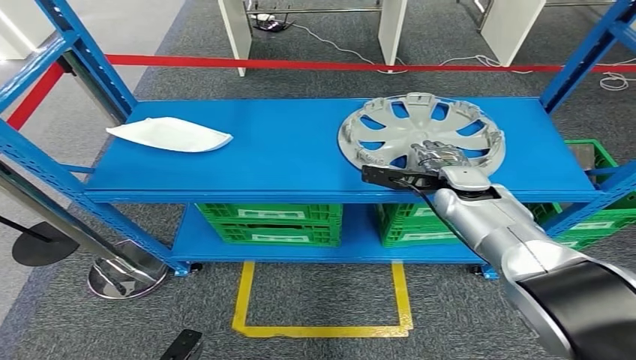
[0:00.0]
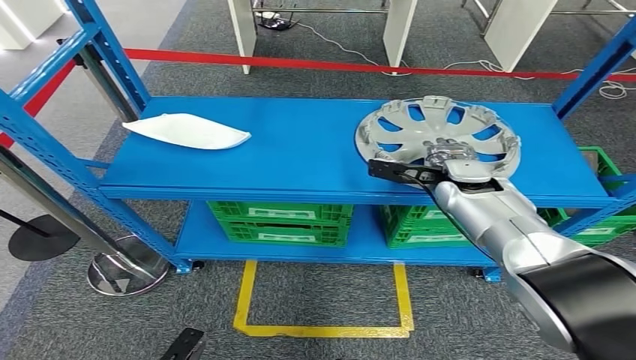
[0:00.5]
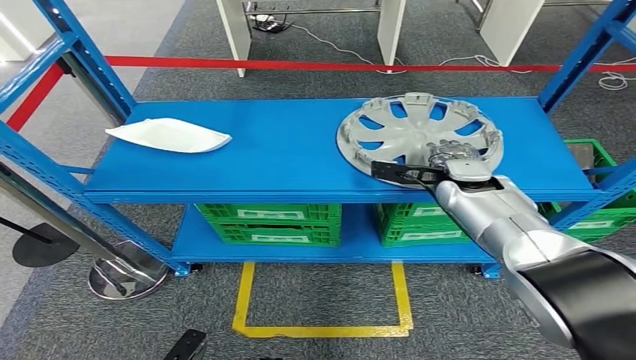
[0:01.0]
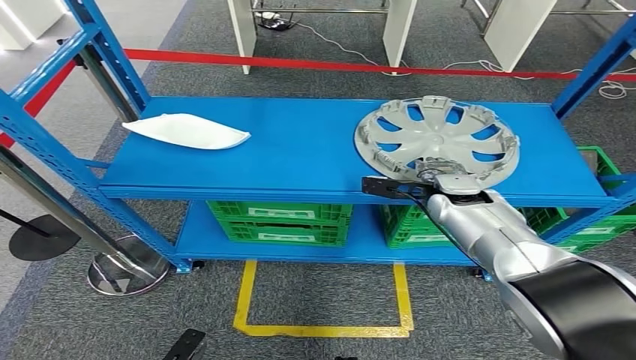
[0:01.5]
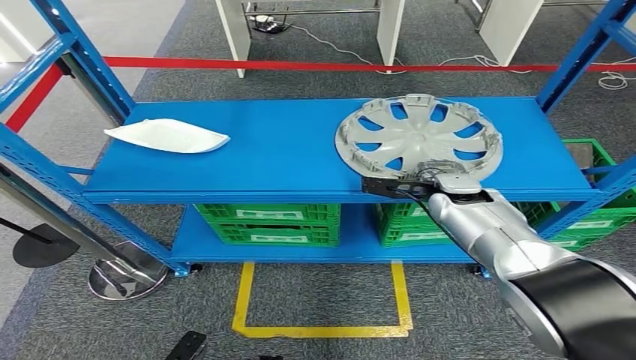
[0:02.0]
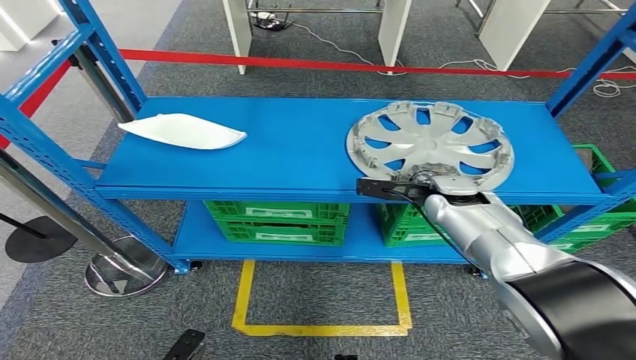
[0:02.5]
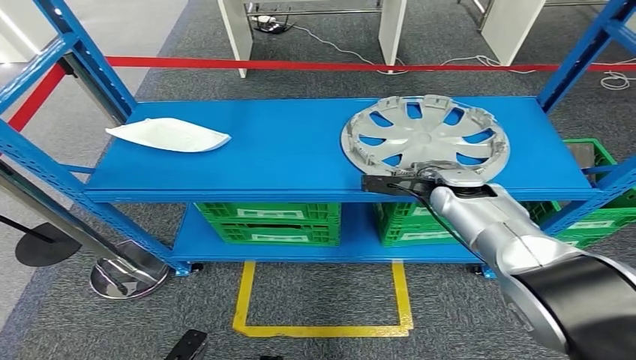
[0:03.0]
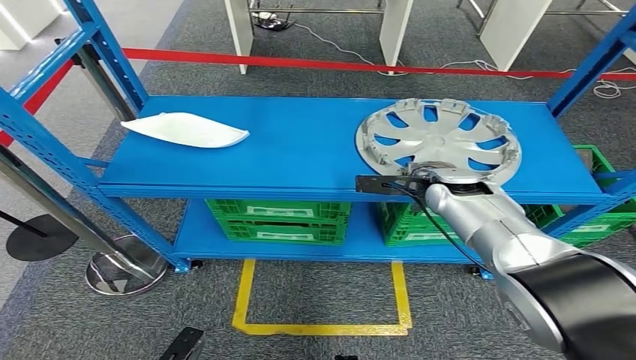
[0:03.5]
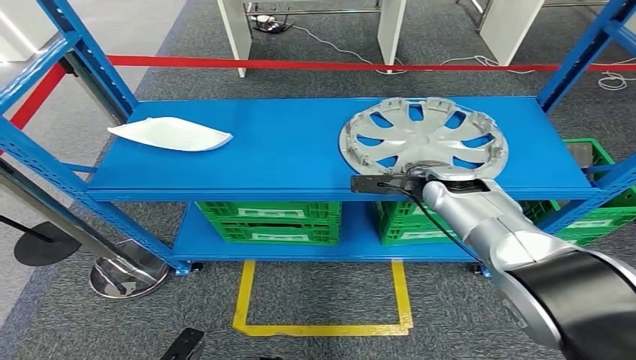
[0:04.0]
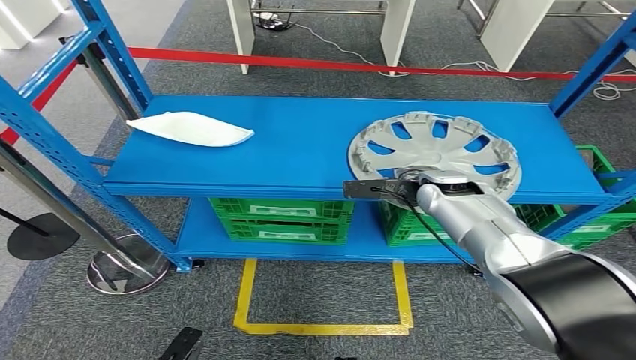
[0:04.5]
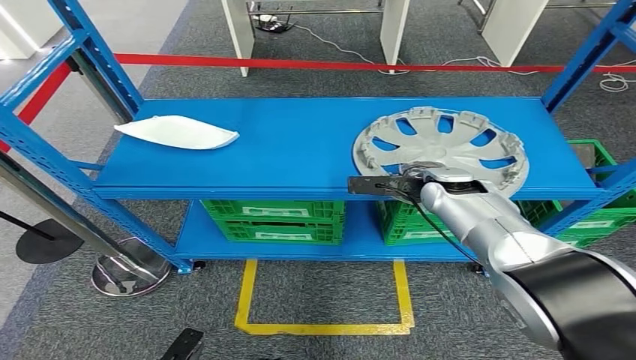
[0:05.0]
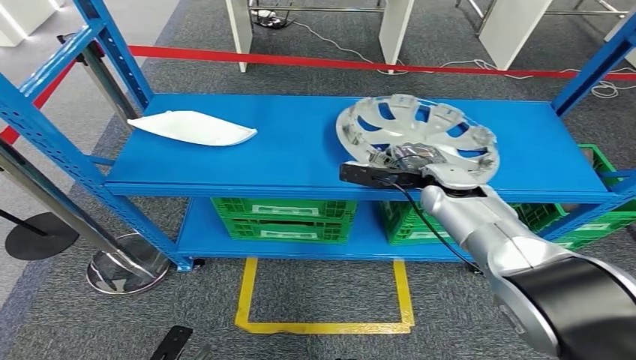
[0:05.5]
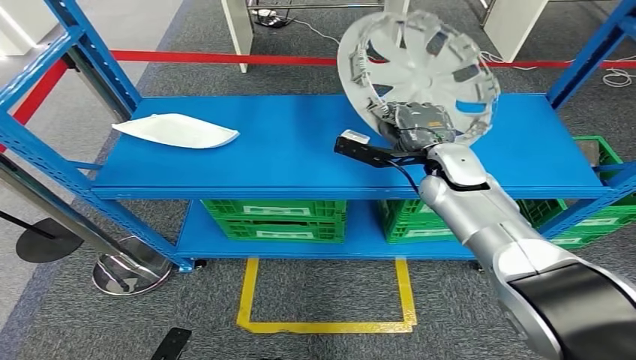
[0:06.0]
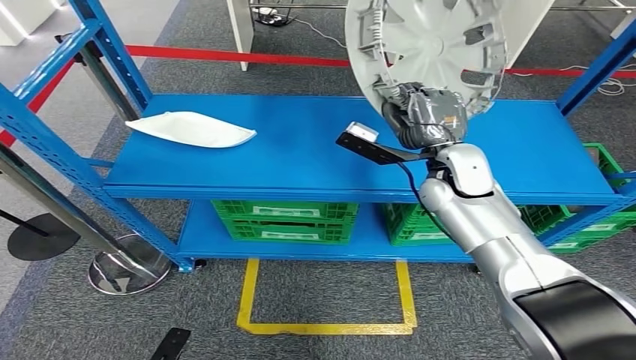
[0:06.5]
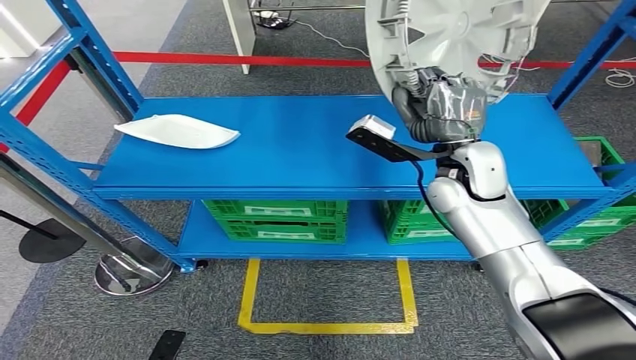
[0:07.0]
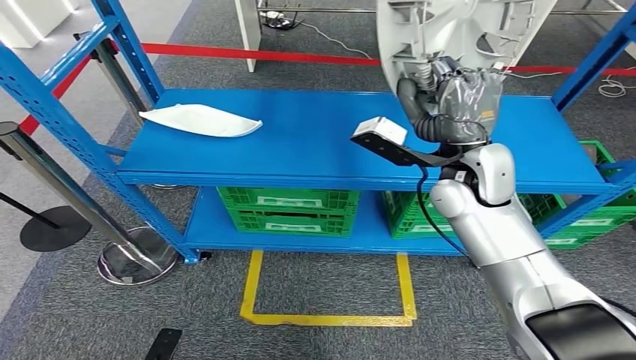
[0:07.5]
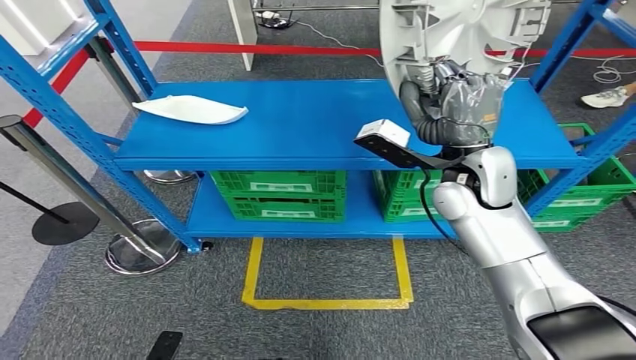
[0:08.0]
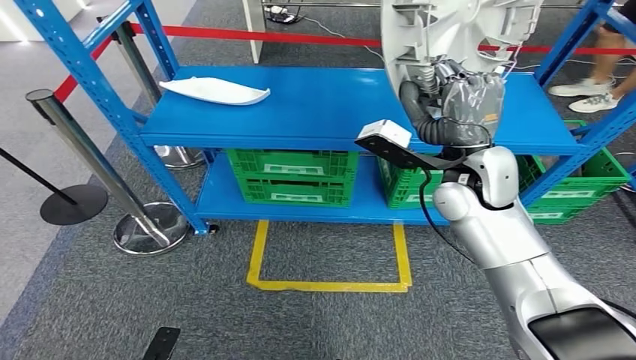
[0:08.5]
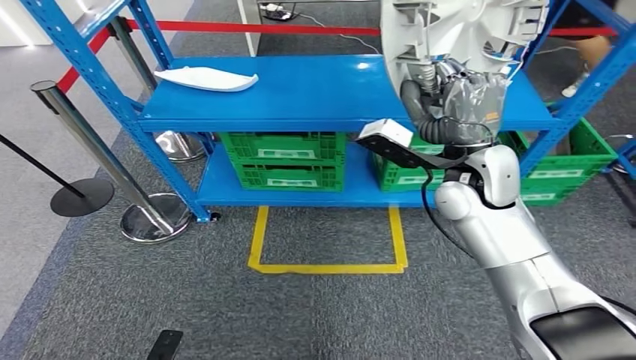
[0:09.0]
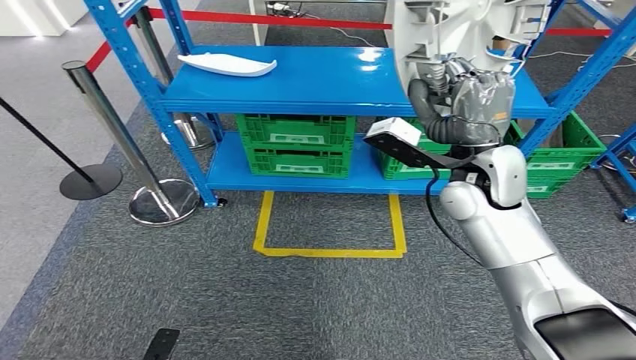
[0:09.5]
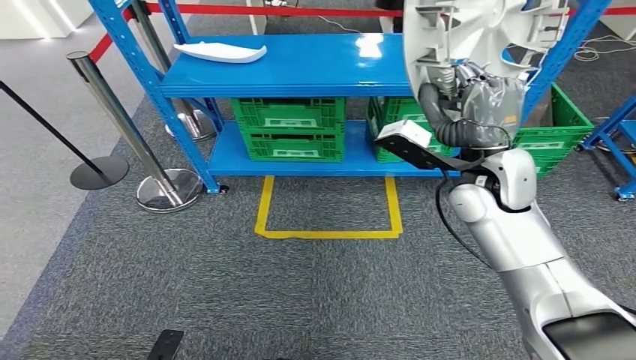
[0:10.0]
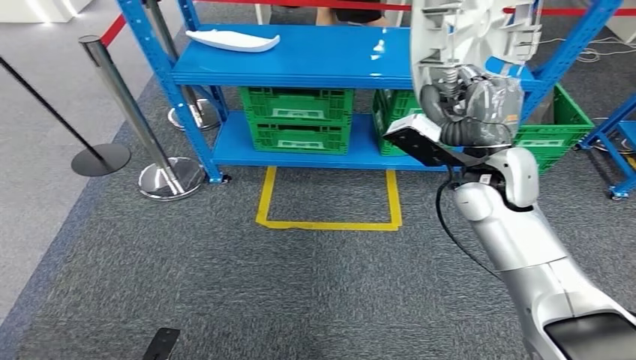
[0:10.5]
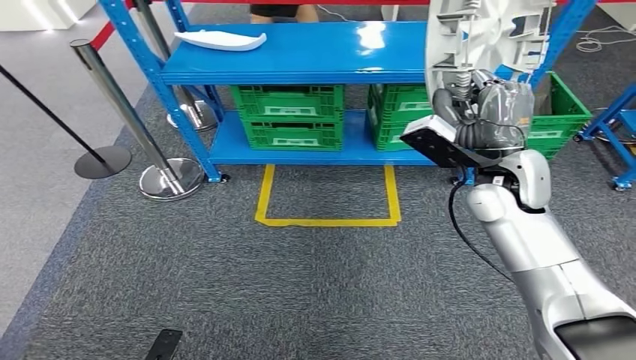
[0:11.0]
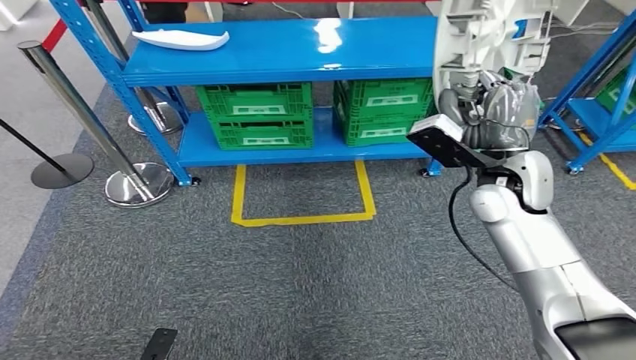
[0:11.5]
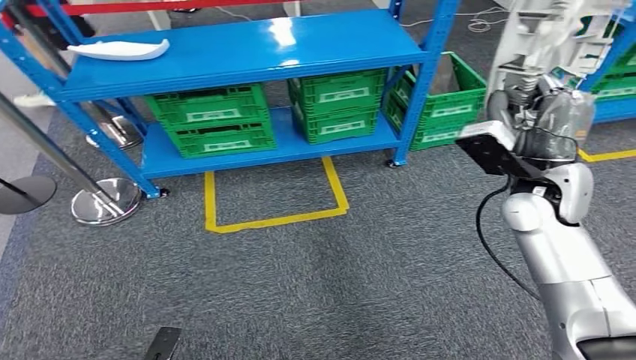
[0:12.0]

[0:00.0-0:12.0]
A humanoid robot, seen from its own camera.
Step, 0:00.0 to 0:07.0: Pick up the small component from the shelf.
0:00.0 to 0:04.0: The hands make only small movements.

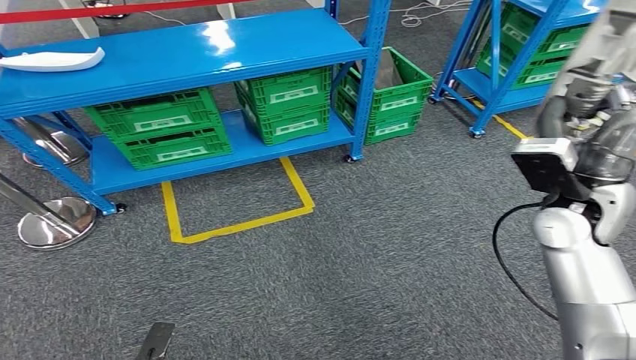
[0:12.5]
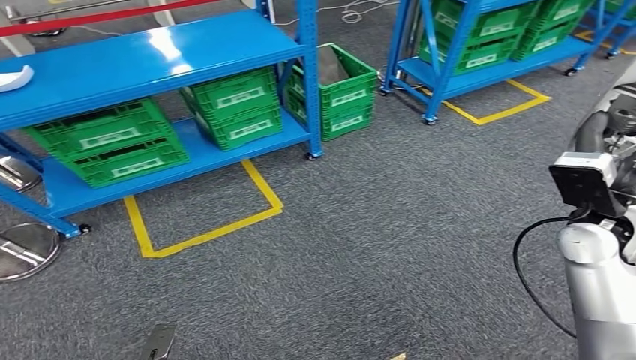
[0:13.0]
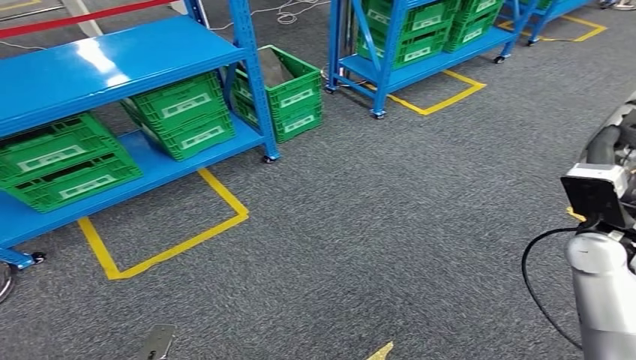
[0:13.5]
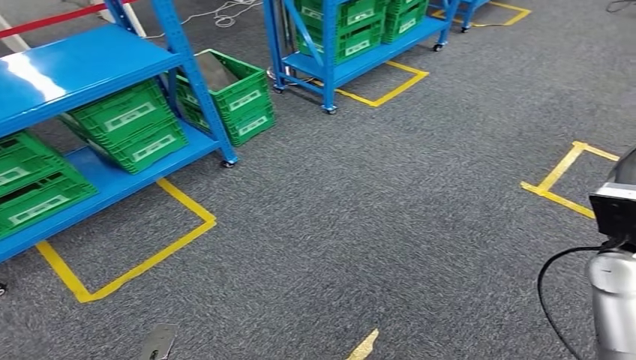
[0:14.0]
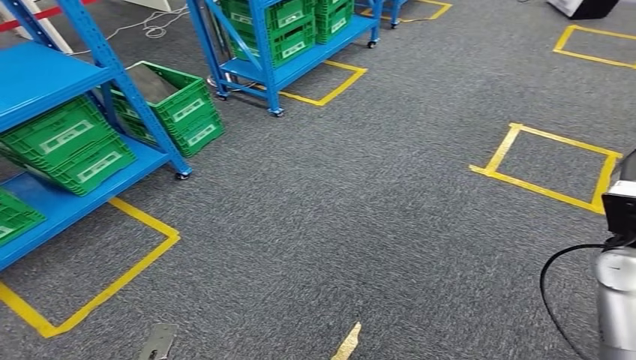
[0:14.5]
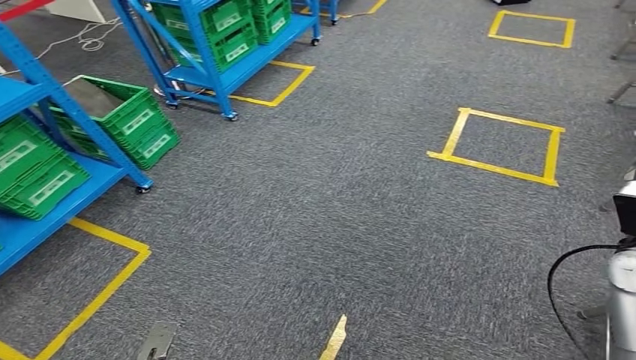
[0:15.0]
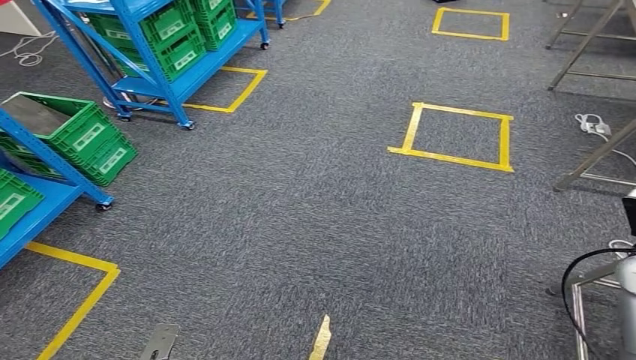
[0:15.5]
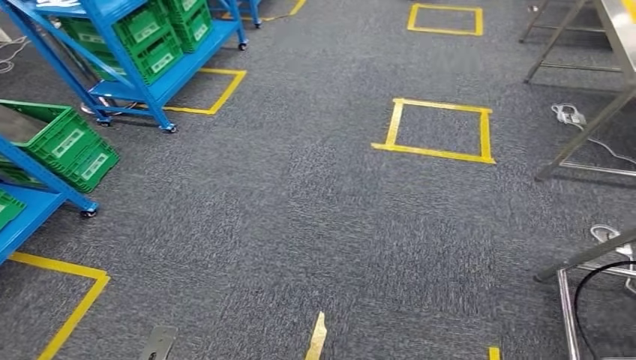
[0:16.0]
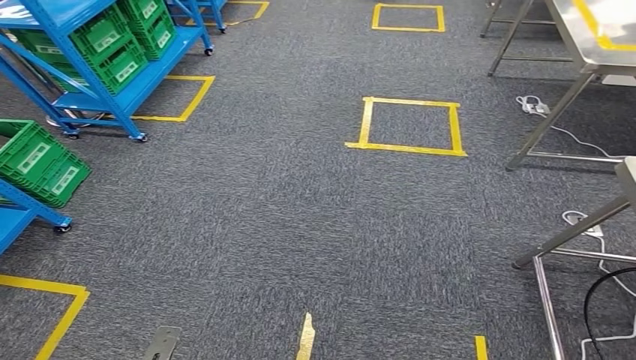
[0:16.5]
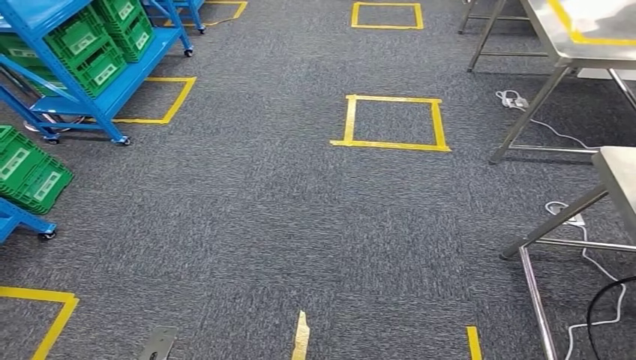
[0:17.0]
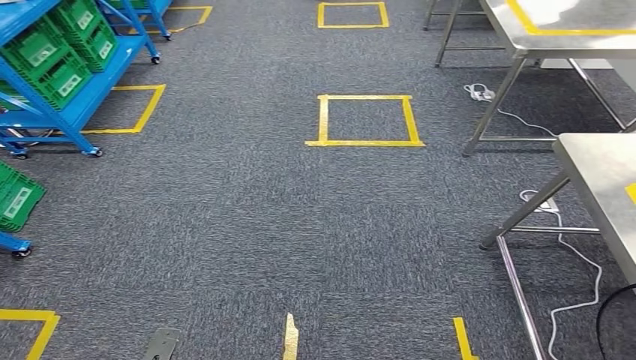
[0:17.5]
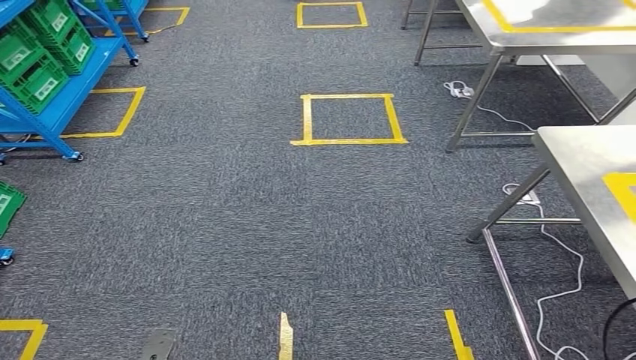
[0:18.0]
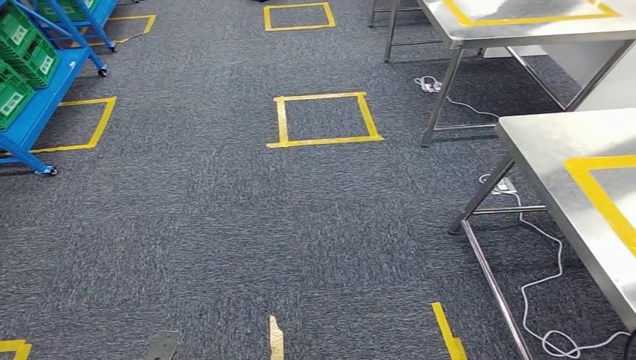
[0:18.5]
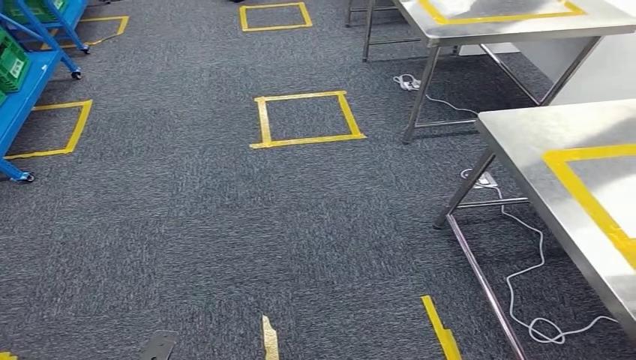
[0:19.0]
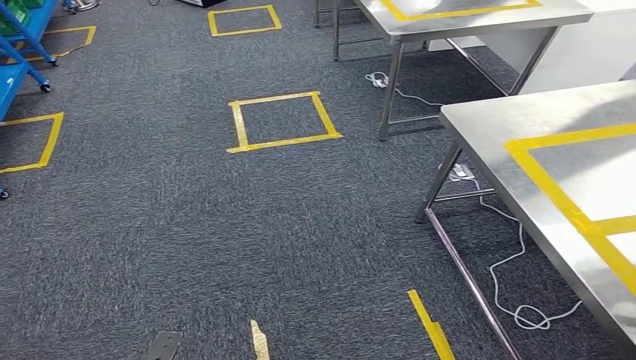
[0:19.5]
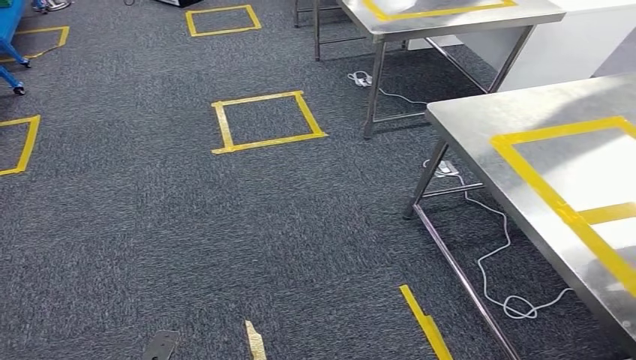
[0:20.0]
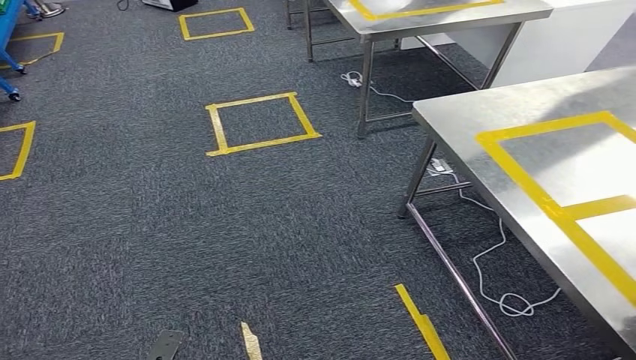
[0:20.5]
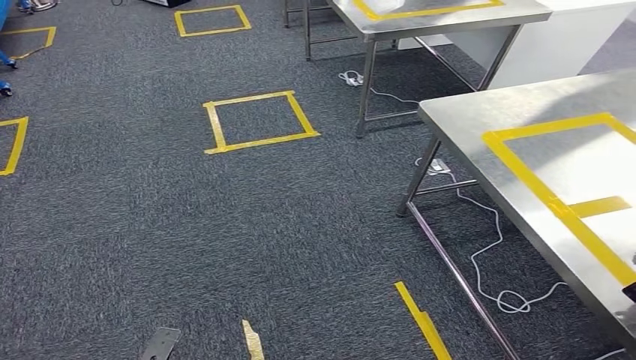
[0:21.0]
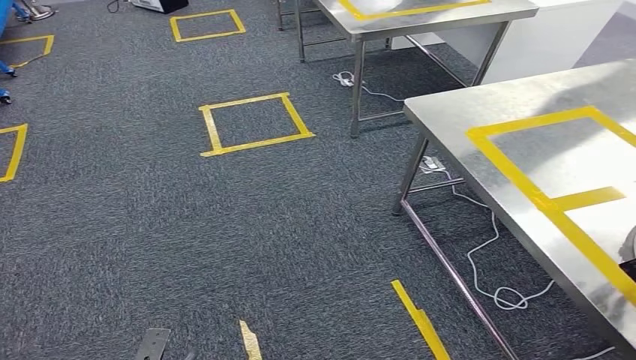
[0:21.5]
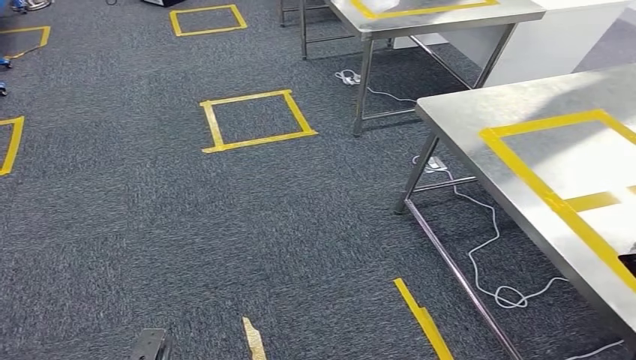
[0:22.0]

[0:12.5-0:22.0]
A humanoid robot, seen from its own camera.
Step, 0:12.5 to 0:22.0: Move the small component to the workbench.
0:20.0 to 0:22.0: The right hand changes place by approximately 5 cm.
